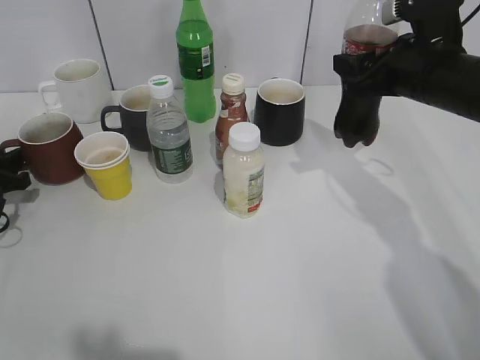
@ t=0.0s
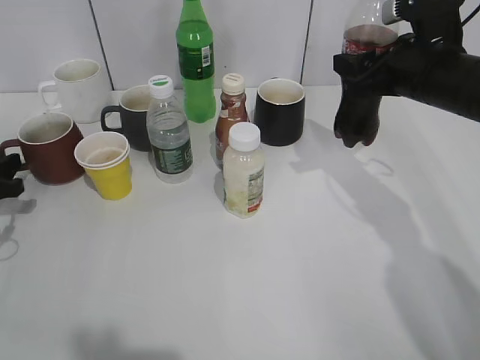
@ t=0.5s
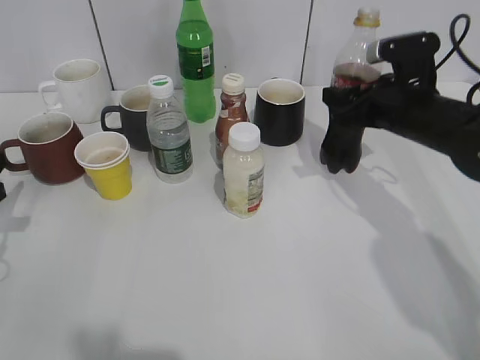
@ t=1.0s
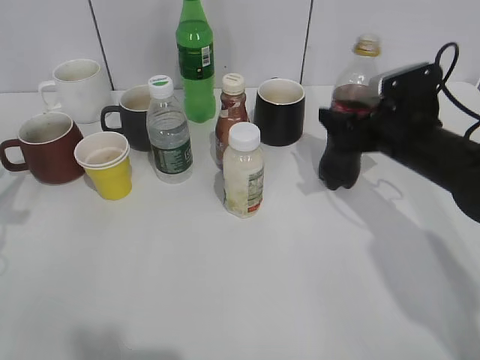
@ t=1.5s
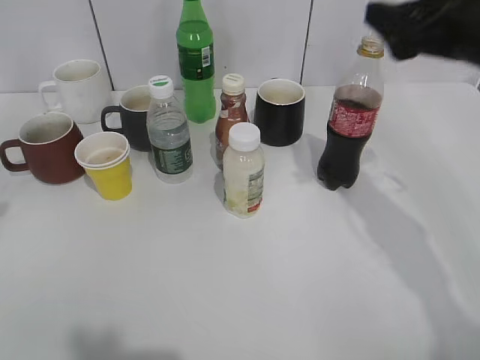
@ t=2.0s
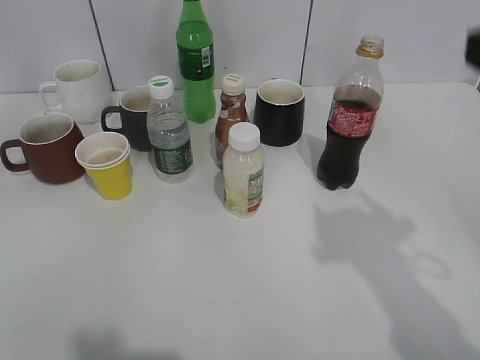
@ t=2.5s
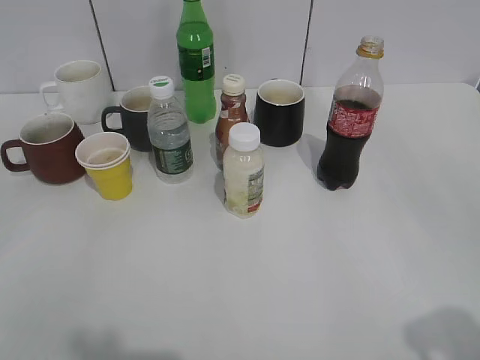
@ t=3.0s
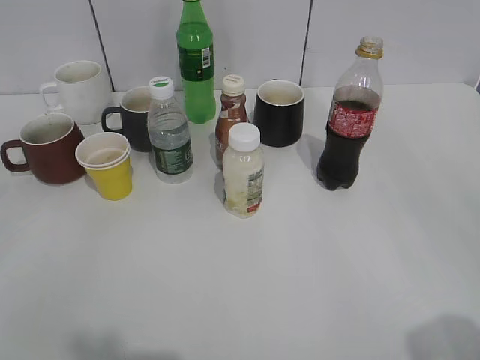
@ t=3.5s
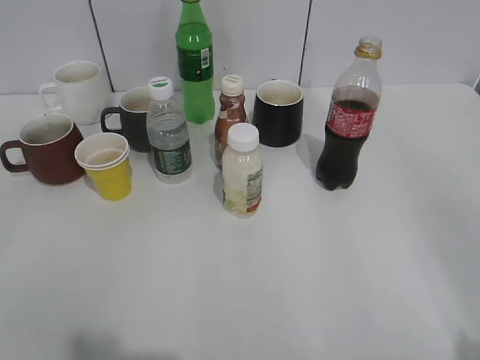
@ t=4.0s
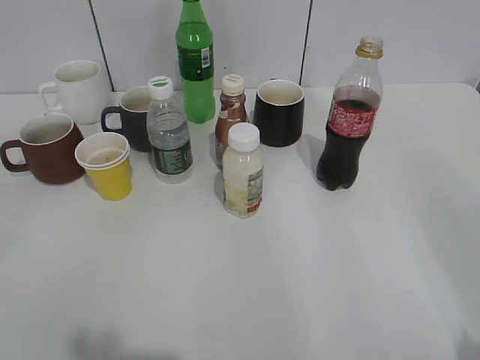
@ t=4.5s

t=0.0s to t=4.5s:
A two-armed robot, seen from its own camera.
t=0.0s to t=2.0s: The right gripper heads upward and backward, covering roughly 10 cm, and opens, while the left gripper is displaced upward and backward by some 25 cm.
t=2.0s to t=4.5s: The grippers both shift backward by some 25 cm.

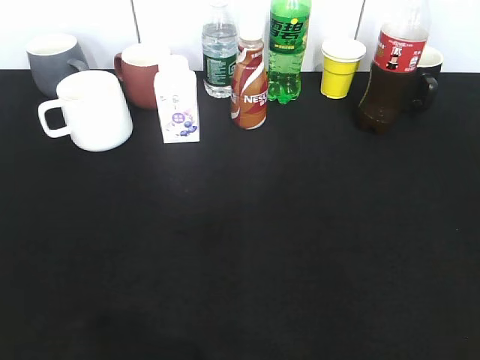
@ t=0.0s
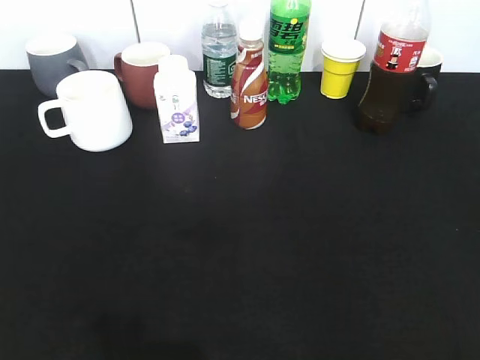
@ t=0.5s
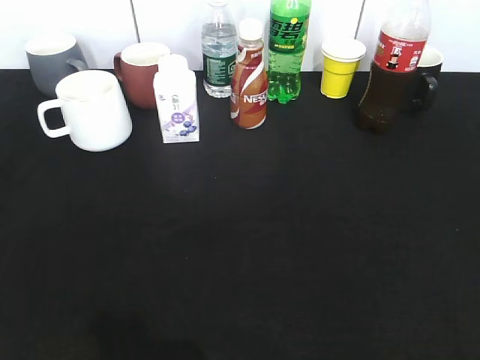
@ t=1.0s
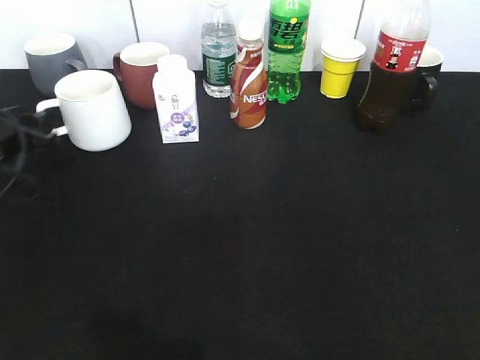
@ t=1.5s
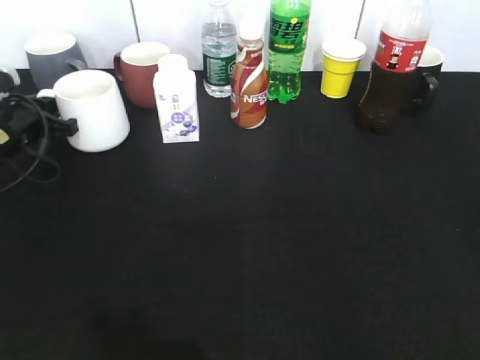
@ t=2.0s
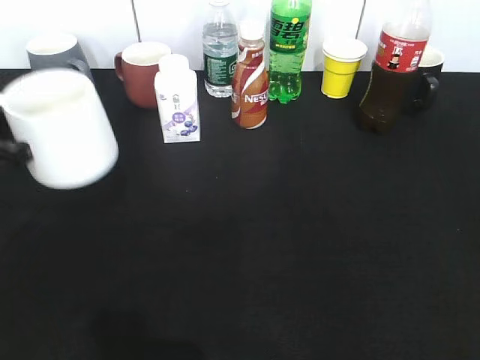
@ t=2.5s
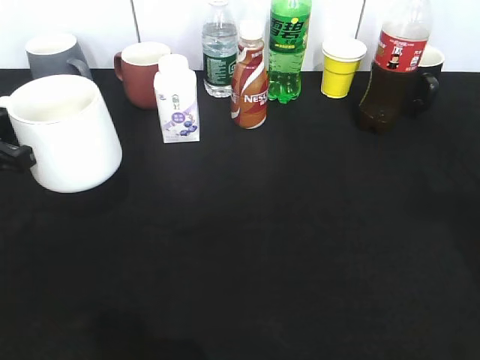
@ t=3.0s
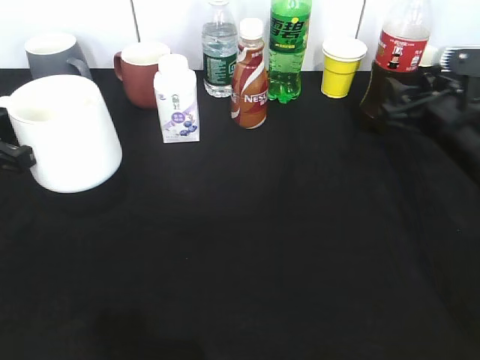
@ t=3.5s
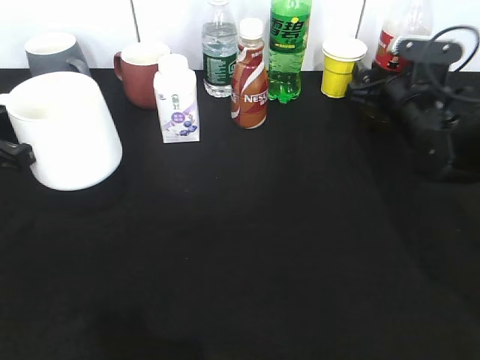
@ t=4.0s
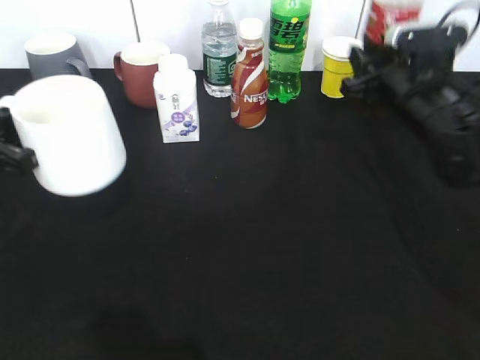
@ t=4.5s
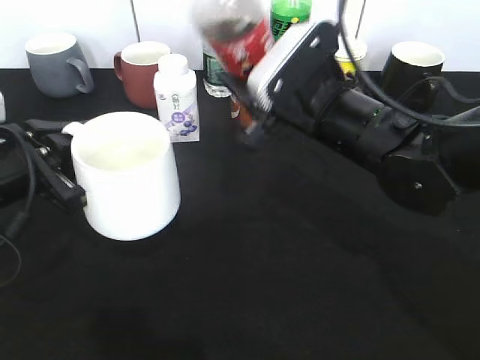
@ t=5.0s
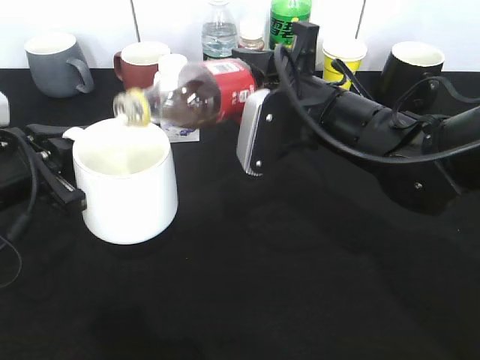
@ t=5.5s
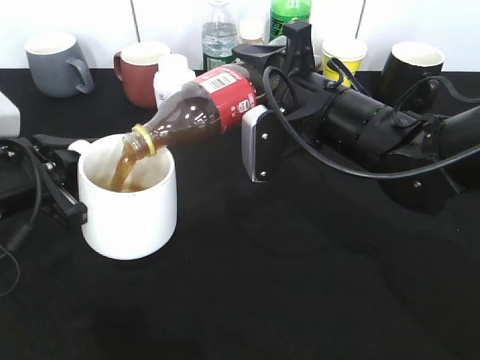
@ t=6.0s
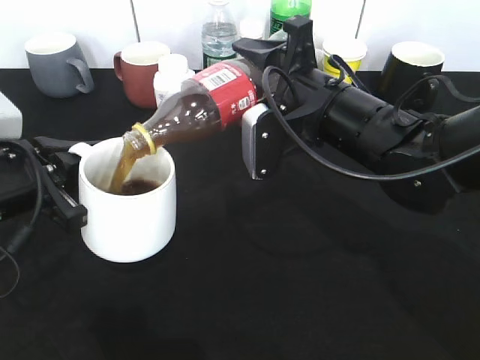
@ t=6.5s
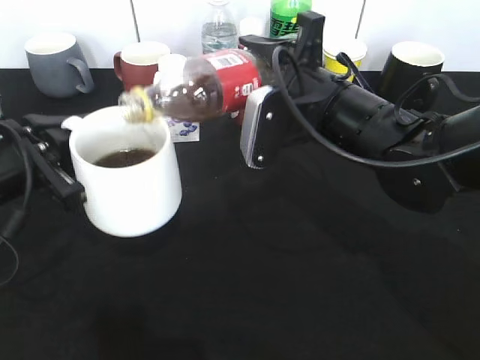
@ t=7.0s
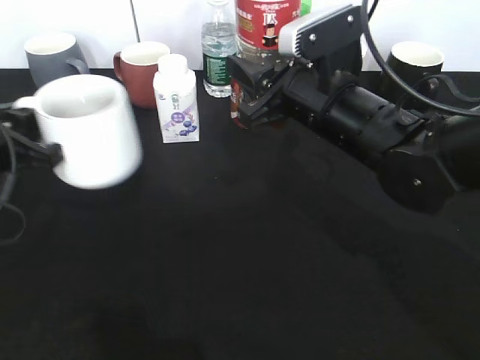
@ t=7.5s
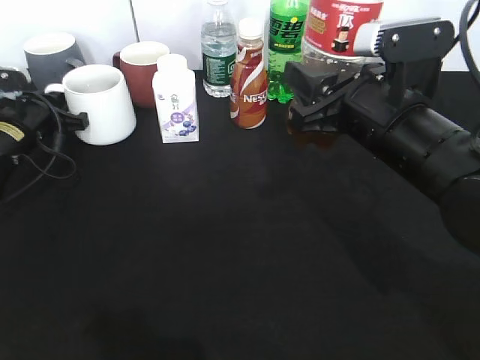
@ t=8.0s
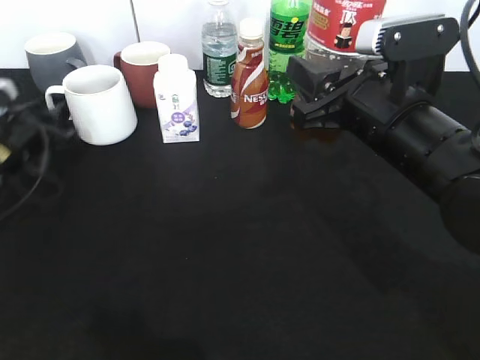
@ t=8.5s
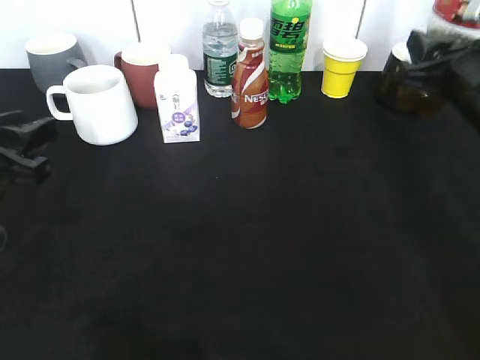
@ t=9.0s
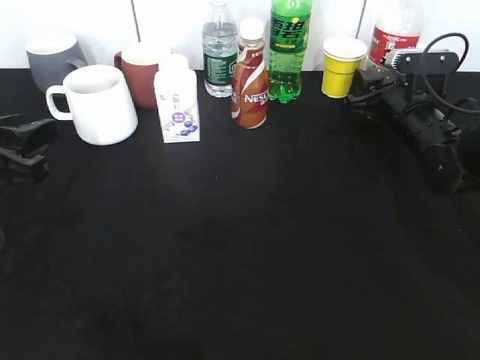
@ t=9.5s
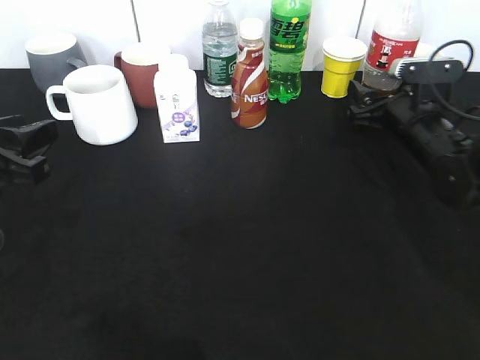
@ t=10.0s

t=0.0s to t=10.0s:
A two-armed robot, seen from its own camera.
Step, t=0.0s to t=1.5s: Grasp the white cup with left gripper.
Step, t=2.0s to t=3.0s: Lift the white cup with left gripper.
Step, t=3.5s to t=4.0s: Grasp the bottle with cola with right gripper.
Step, t=4.5s to t=7.0s: Pour the cola from bottle to cup with right gripper.
Step, t=7.5s to t=8.5s: Place the white cup on the table with left gripper.
t=0.0s to t=2.0s: The left gripper moves forward and downward, some 40 cm, and closes its fingers.
t=2.0s to t=4.0s: The left gripper heads backward and upward, covering approximately 15 cm, while the right gripper is displaced forward by about 40 cm.
t=4.0s to t=6.0s: The right gripper heads to the left, backward and upward, covering roughly 20 cm, and closes up. The left gripper is displaced to the right by approximately 5 cm.
t=6.0s to t=8.0s: The left gripper travels forward by approximately 15 cm; the right gripper shifts by some 5 cm.
t=8.0s to t=10.0s: The left gripper is displaced backward and upward by some 20 cm, and opens; the right gripper is displaced forward, downward and to the right by roughly 20 cm, and opens.

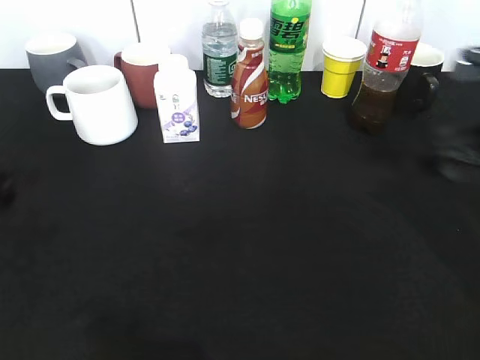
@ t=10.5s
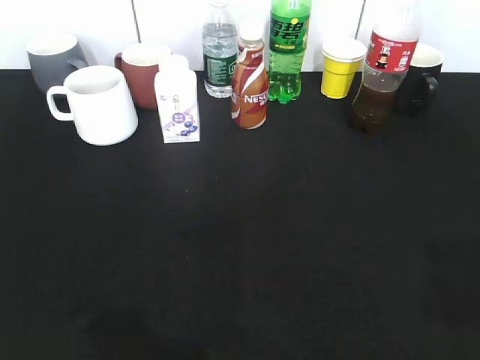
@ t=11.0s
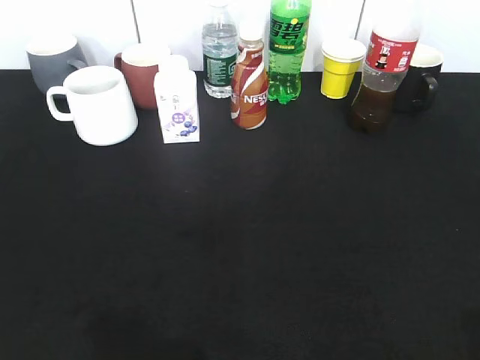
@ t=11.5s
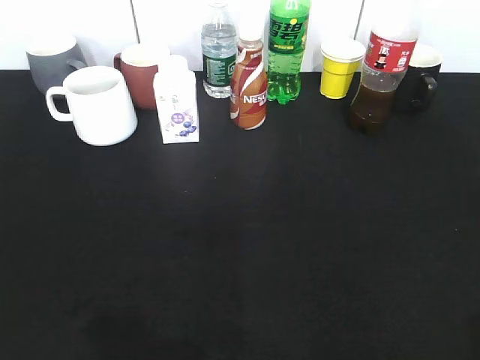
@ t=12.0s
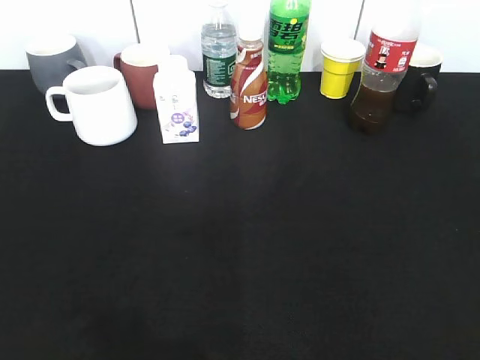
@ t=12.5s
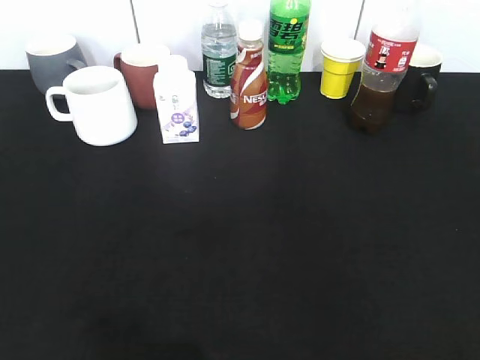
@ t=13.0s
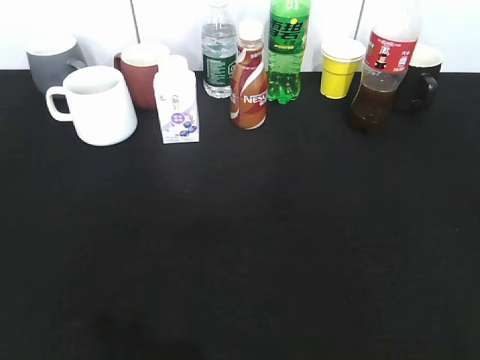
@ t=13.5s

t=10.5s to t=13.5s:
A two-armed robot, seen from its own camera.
t=10.5s to t=12.0s: The grippers both shift backward by some 20 cm.

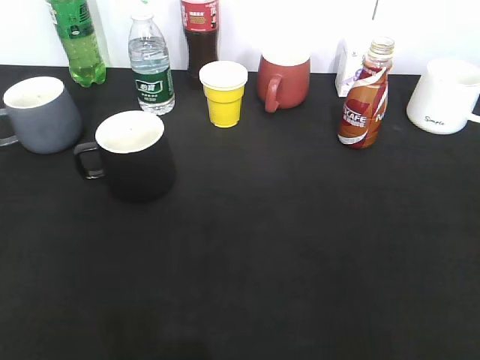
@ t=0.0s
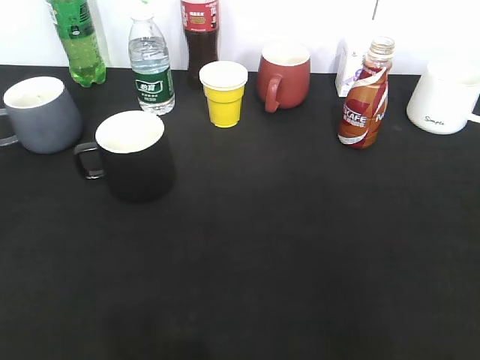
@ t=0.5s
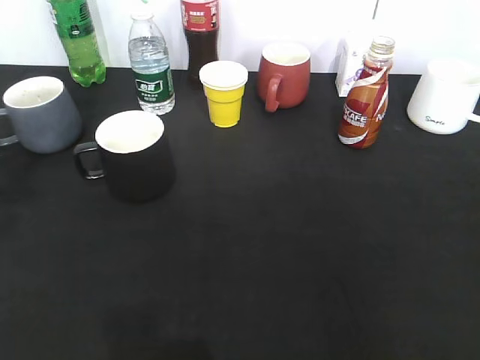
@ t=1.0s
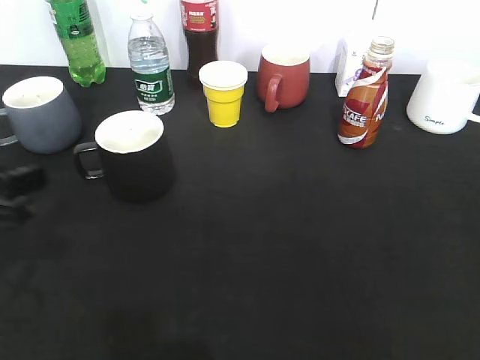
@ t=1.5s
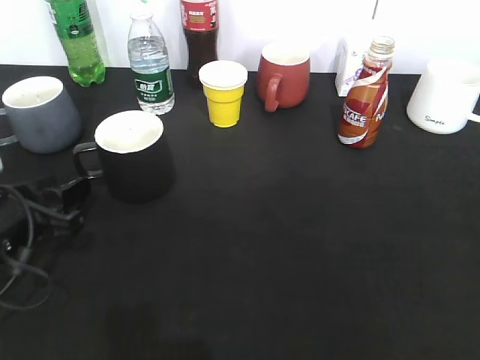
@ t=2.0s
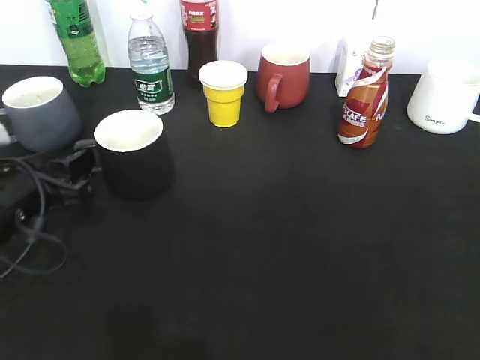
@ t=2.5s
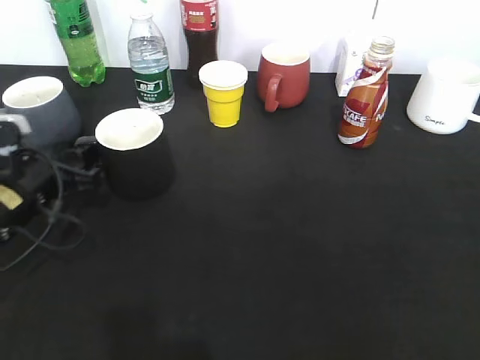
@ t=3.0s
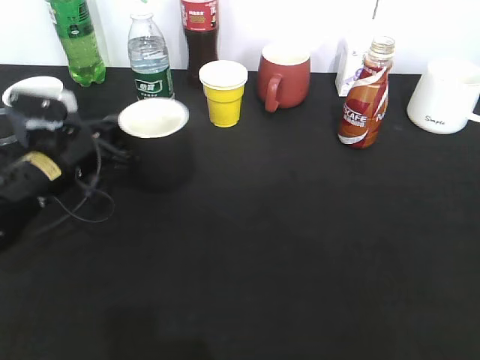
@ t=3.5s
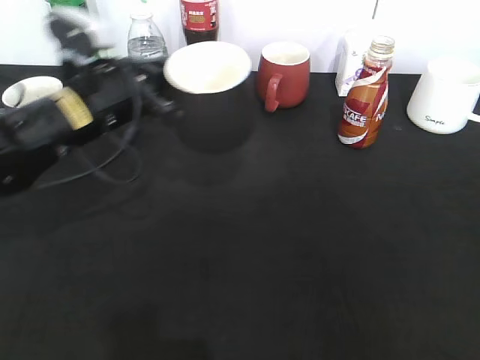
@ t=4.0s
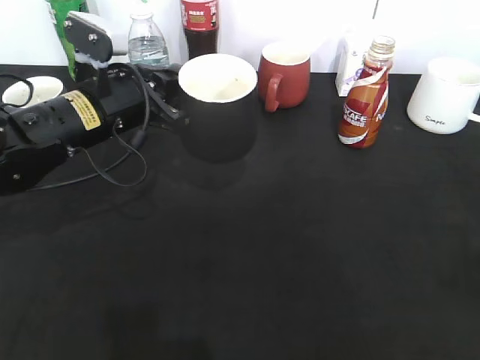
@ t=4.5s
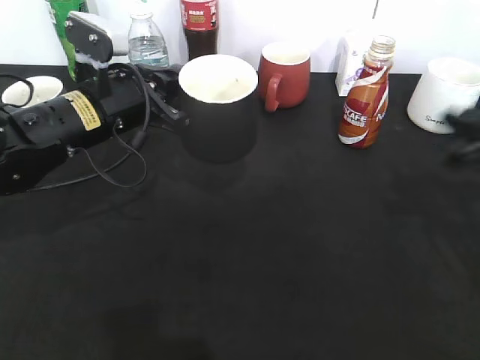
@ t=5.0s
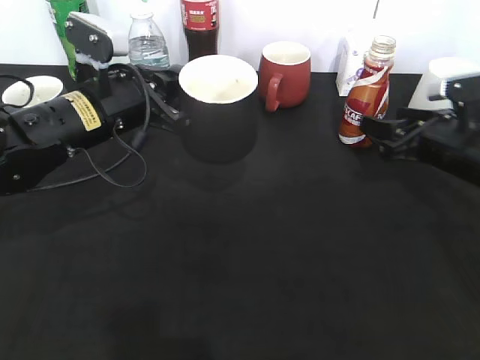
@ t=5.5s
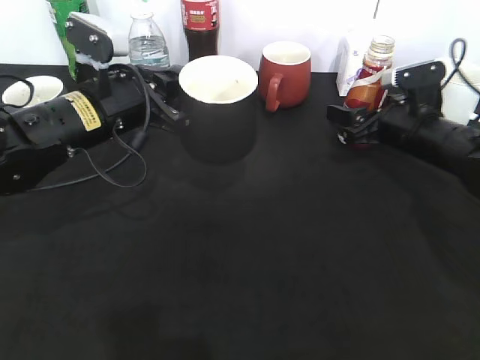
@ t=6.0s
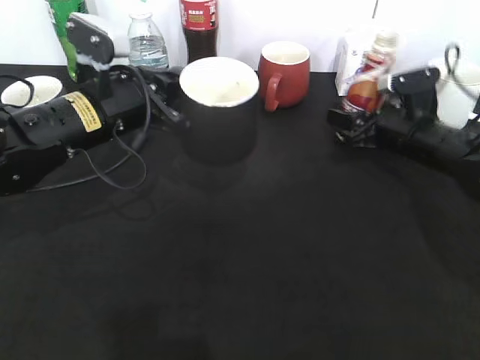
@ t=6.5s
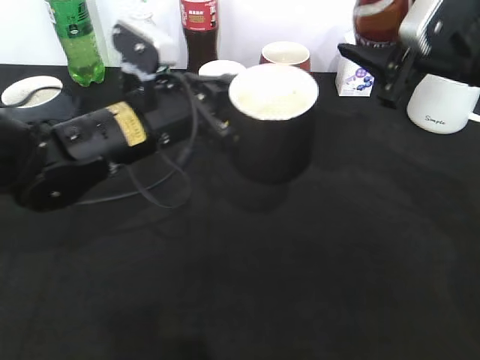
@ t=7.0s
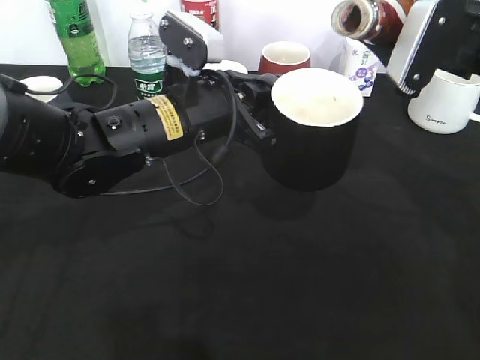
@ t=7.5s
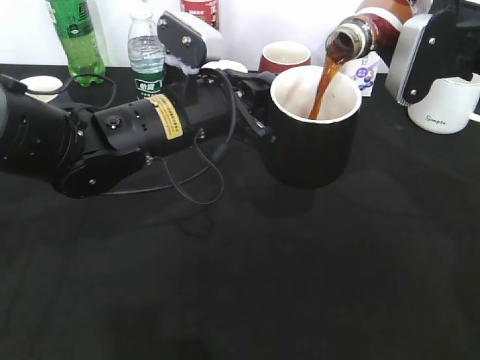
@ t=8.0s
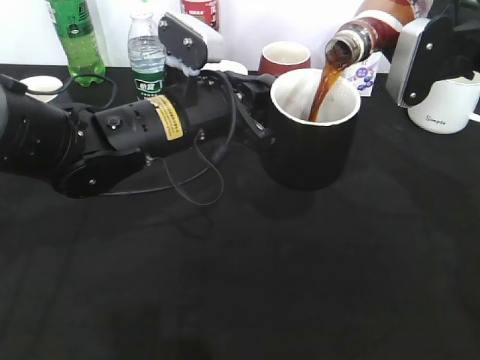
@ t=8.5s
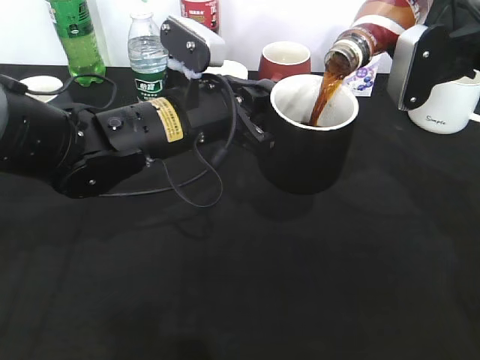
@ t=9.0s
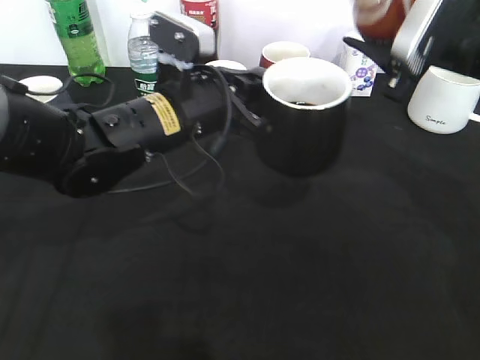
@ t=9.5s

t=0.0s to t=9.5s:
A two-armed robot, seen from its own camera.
Step, t=0.0s to t=3.0s: Grasp the black cup with left gripper.
Step, t=3.5s to t=4.0s: Lift the black cup with left gripper.
Step, t=4.5s to t=6.0s: Grasp the bottle with coffee with right gripper.
t=0.0s to t=2.0s: The left gripper heads forward and downward, covering approximately 30 cm, and opens its fingers.
t=2.0s to t=4.0s: The left gripper shifts roughly 15 cm forward, to the right and upward, and closes its fingers.
t=4.0s to t=5.5s: The right gripper travels forward and downward by roughly 35 cm, and opens up.
t=5.5s to t=7.5s: The left gripper is displaced to the right by roughly 10 cm; the right gripper heads upward, covering roughly 15 cm.
